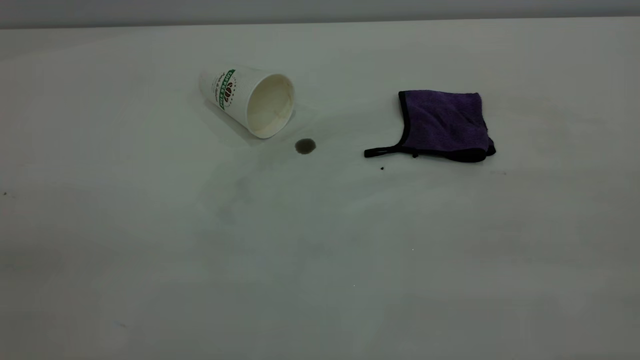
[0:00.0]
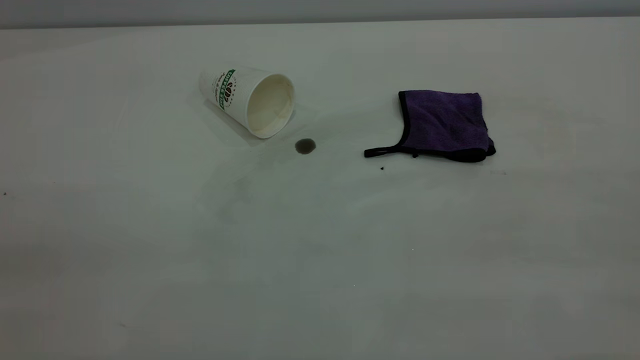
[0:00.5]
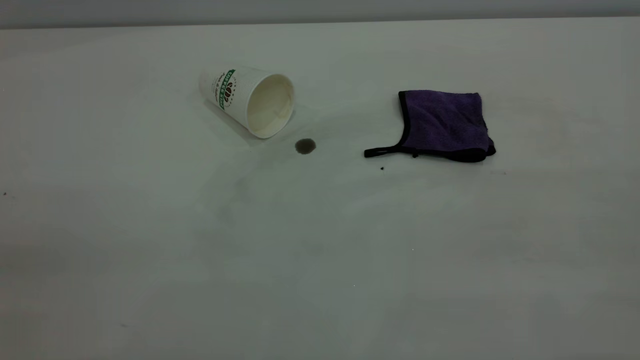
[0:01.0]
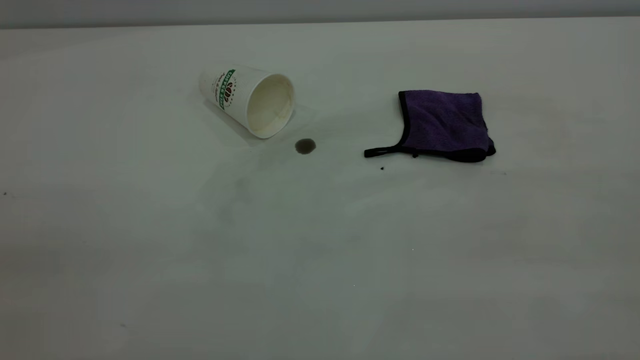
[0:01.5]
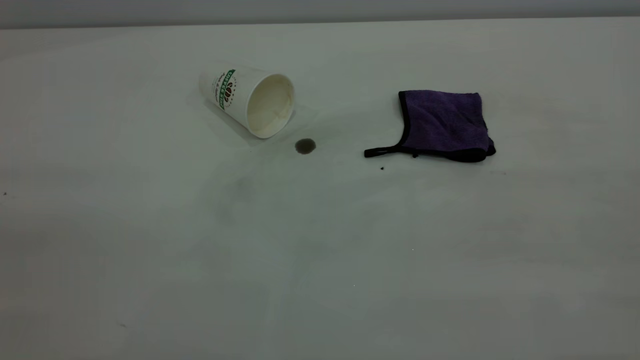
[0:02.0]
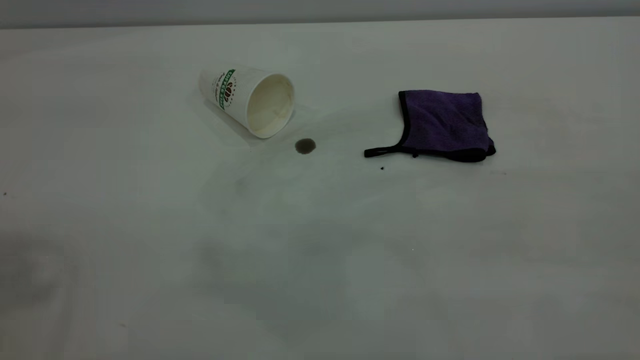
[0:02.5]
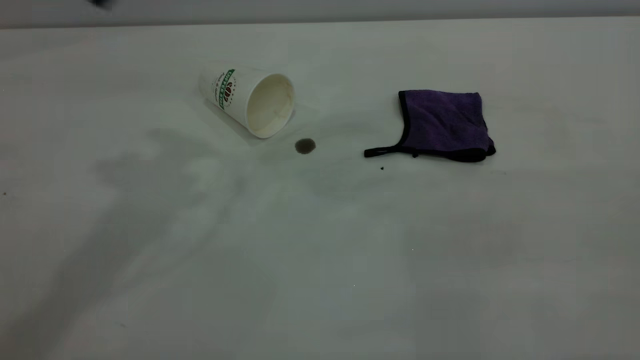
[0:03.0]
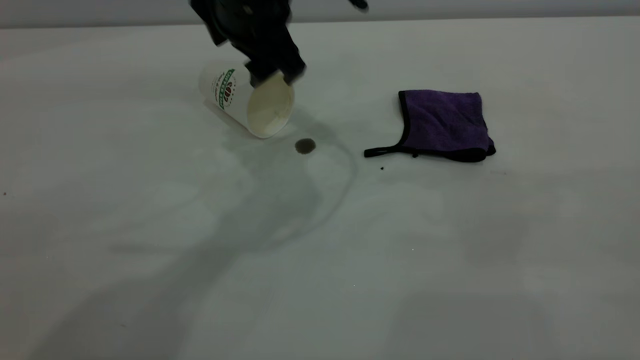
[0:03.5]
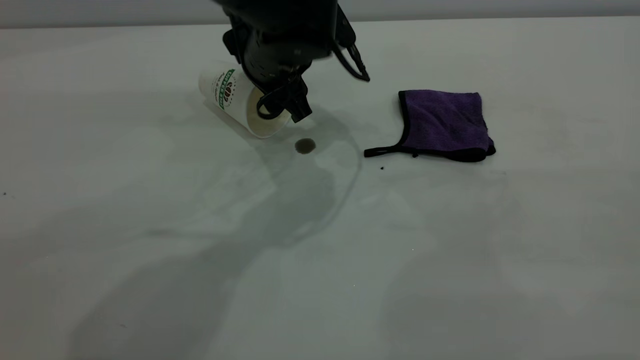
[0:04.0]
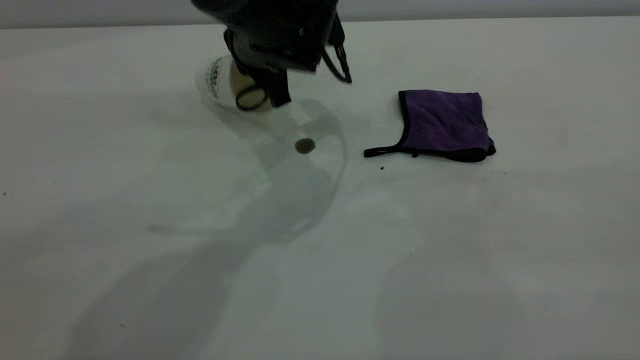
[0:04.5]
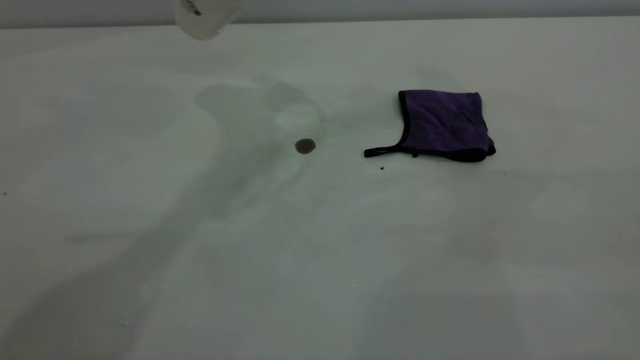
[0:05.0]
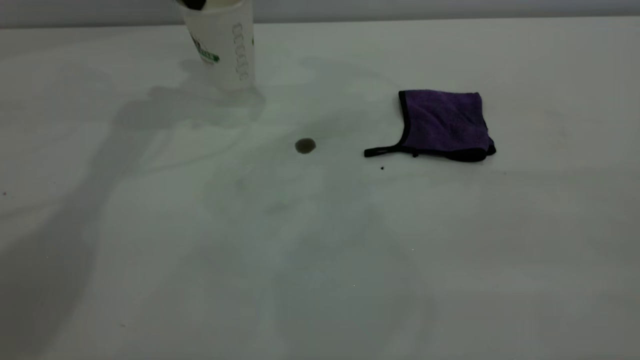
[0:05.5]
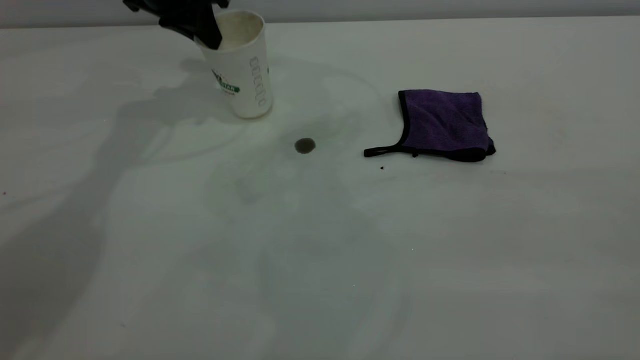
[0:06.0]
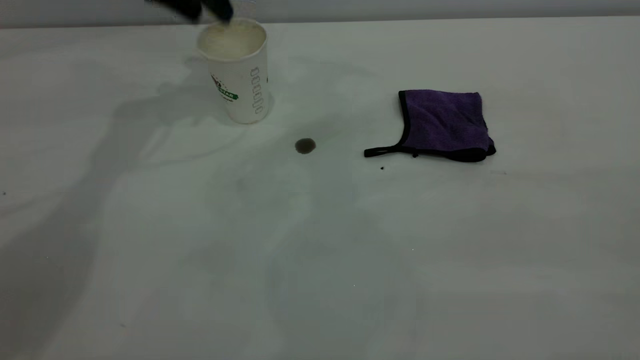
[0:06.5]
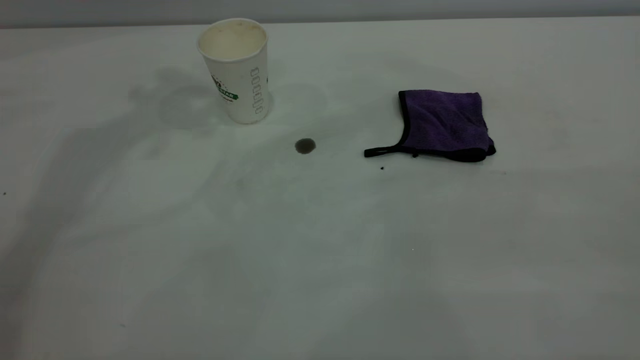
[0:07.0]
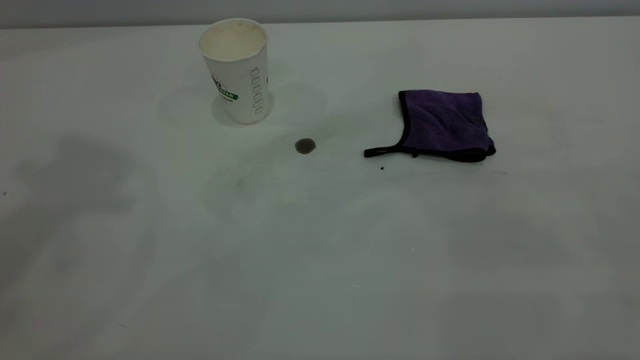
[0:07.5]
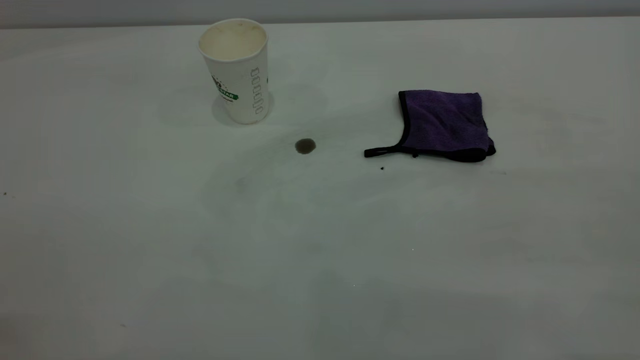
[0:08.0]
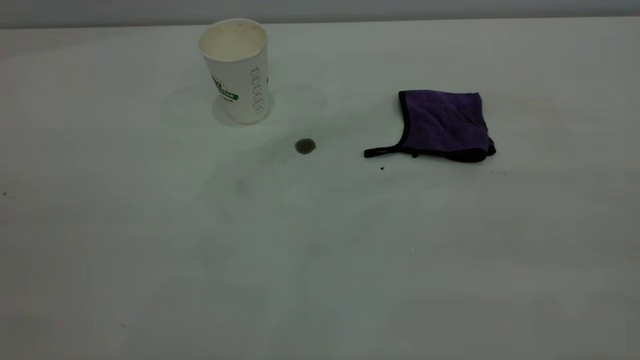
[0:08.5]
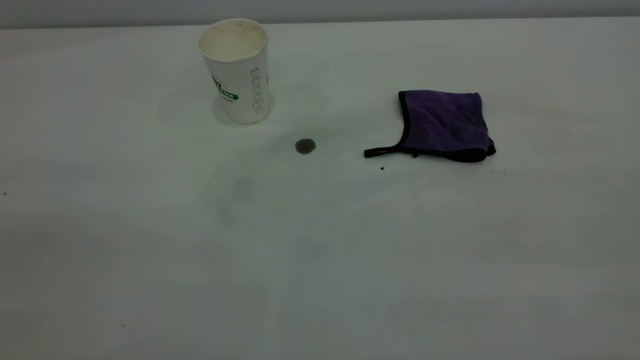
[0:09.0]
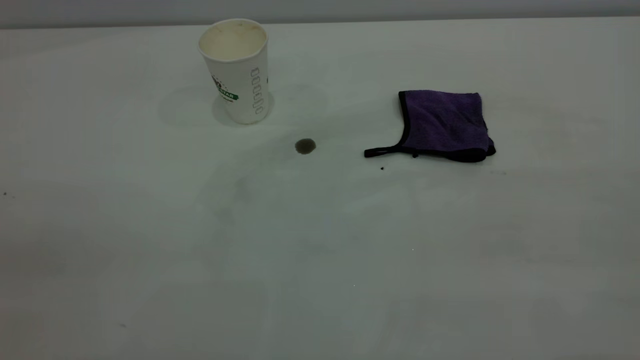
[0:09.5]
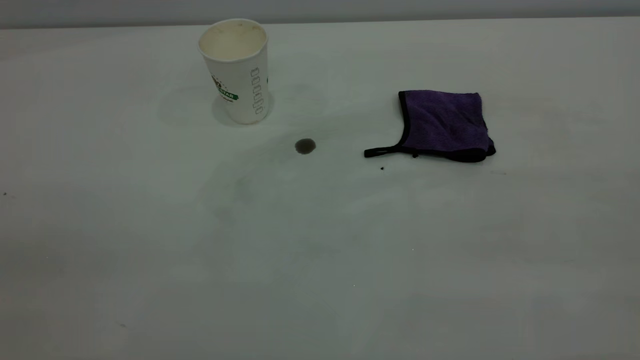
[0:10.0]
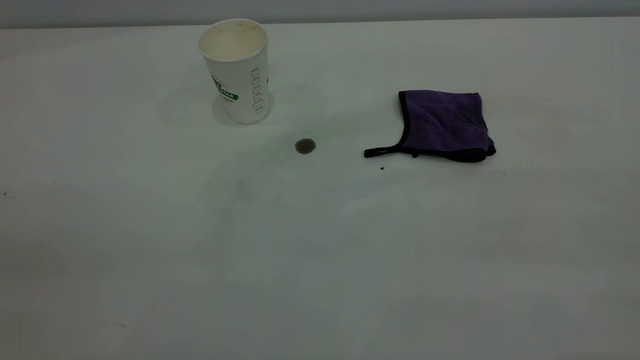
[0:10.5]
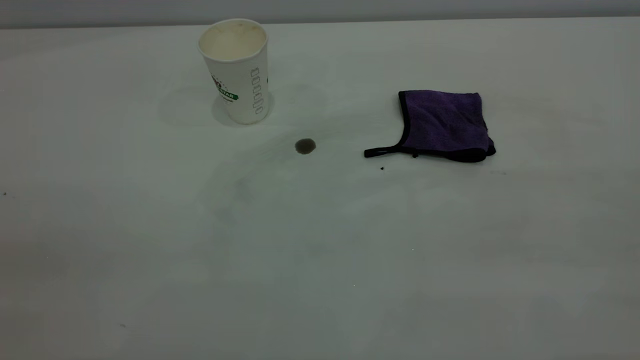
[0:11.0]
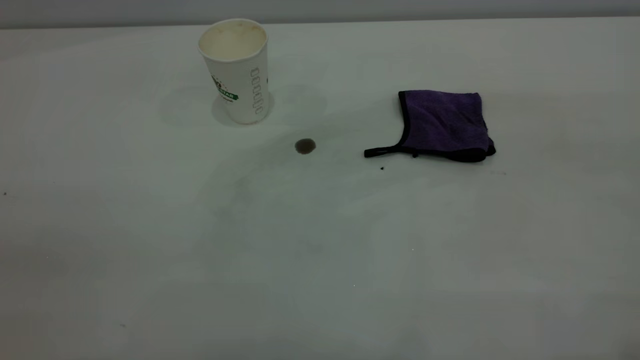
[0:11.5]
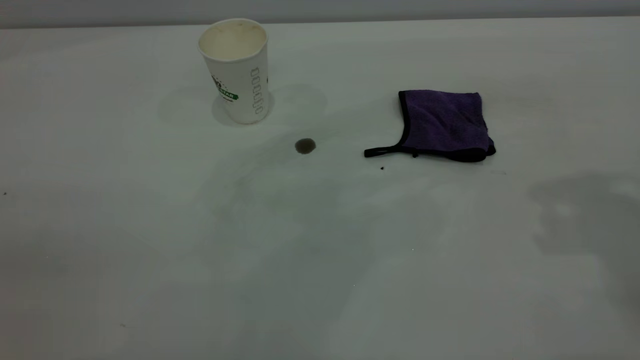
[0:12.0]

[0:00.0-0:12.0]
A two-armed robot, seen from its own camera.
Task of the whole recording: the left gripper pick up the fallen cup and place it upright, the right gripper grasp the purple rag and wipe the coffee stain on the table, the right gripper put the purple rag back in its original position.
Step, 0:00.0 to 0:06.0: Stand the paper cup upright.
0:02.0 to 0:04.0: The left gripper heads forward, to the right and downward, covering roughly 50 cm, and opens.
0:04.0 to 0:06.0: The left gripper is displaced to the left and forward by some 20 cm, goes upward and returns, some 20 cm each way, and closes up.
0:06.0 to 0:08.0: The left gripper is displaced backward and upward by about 60 cm, and opens its fingers.

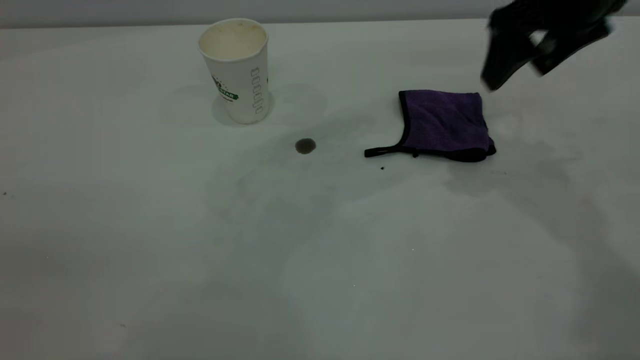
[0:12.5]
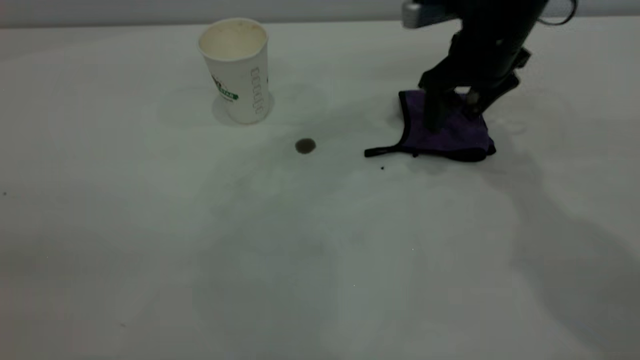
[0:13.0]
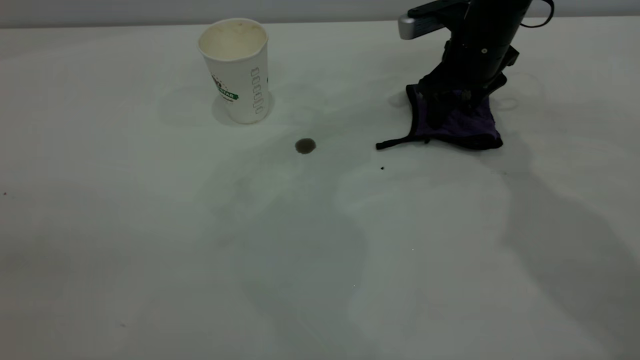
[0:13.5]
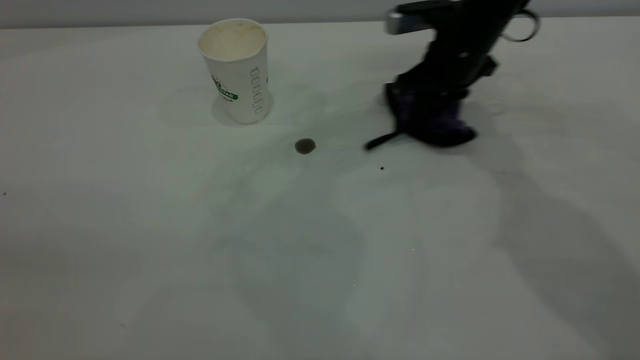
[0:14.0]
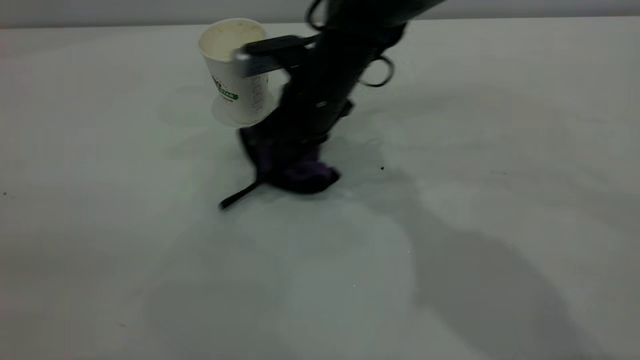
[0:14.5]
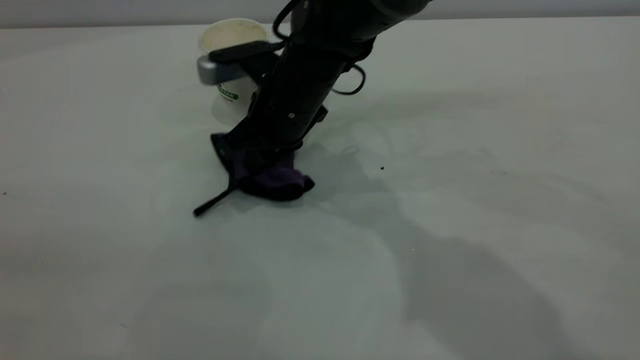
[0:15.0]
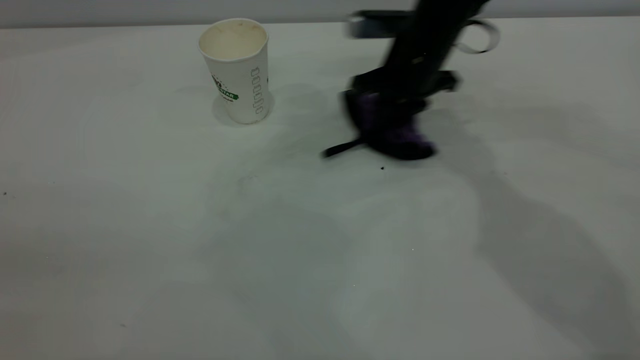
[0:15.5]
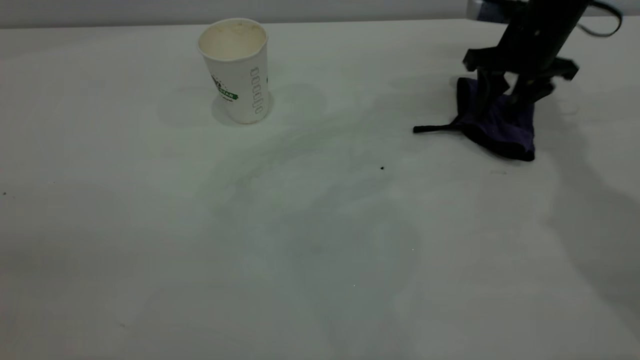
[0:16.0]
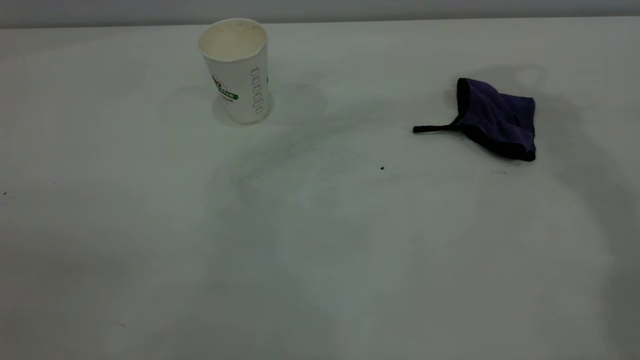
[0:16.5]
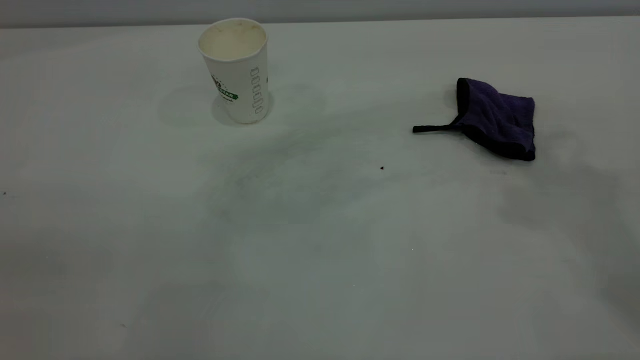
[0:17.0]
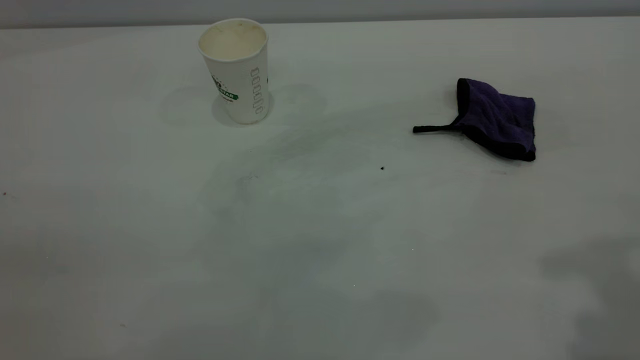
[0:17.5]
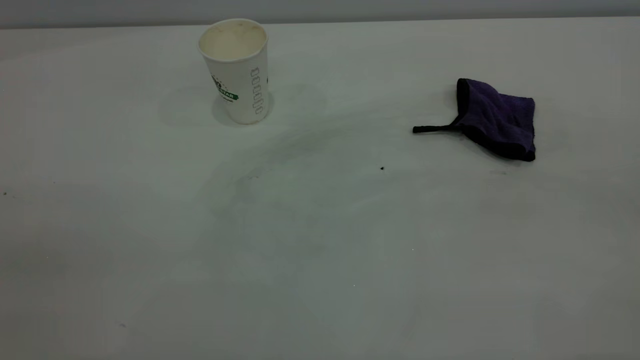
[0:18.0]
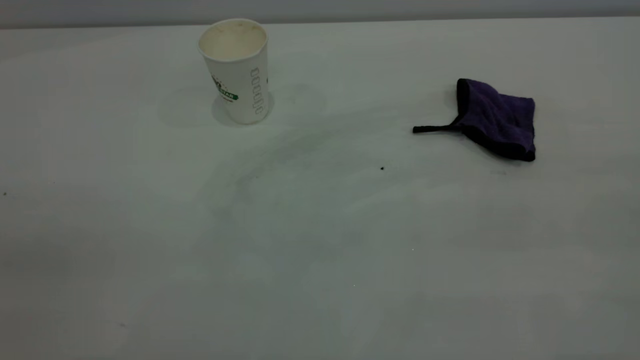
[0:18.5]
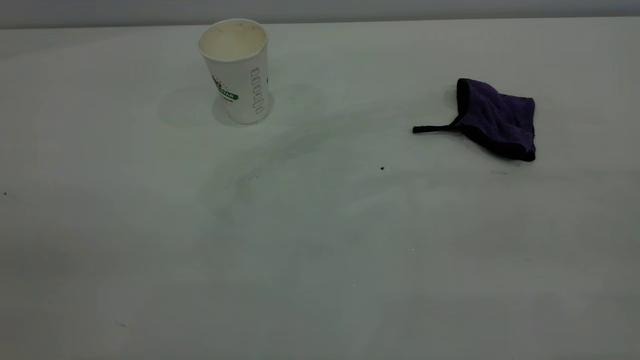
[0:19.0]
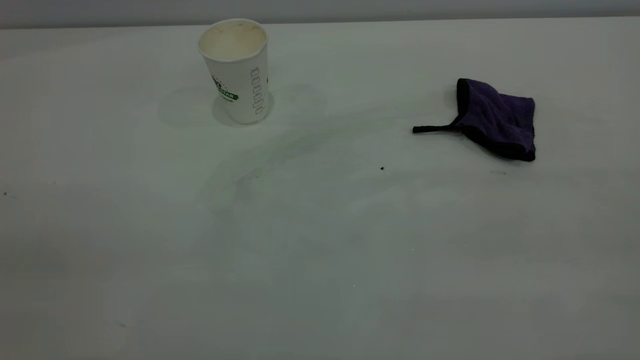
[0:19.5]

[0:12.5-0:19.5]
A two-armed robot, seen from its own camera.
Task of the whole recording: the left gripper pick up the fallen cup and place it upright, the right gripper grasp the purple rag and wipe the coffee stain on the table, the right gripper put the purple rag back in its original position.
Step, 0:12.5 to 0:16.0: Wipe the stains off the table with a rag.
0:12.5 to 0:14.5: The right gripper goes approximately 25 cm to the left and downward, and closes.
0:14.5 to 0:16.0: The right gripper heads to the right, covering roughly 25 cm, and opens up.
0:16.0 to 0:17.5: The right gripper moves backward and upward, some 40 cm.
